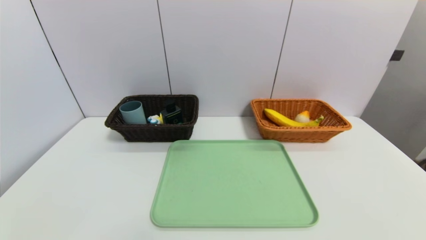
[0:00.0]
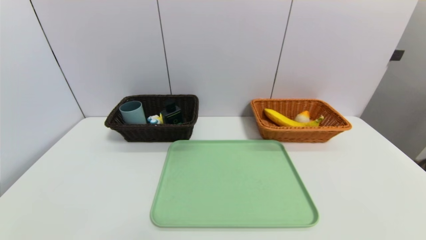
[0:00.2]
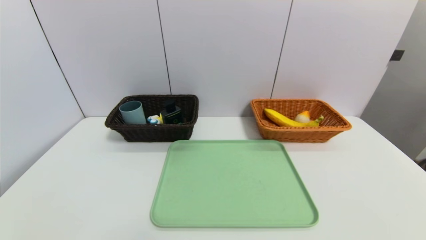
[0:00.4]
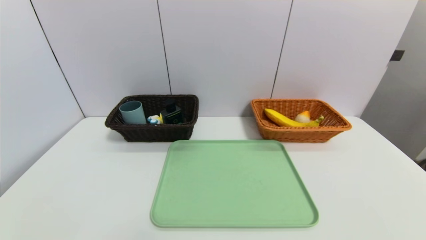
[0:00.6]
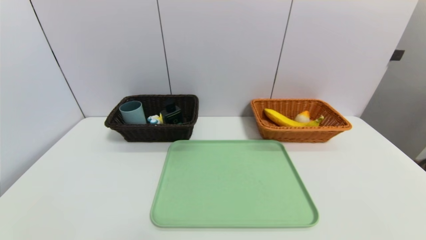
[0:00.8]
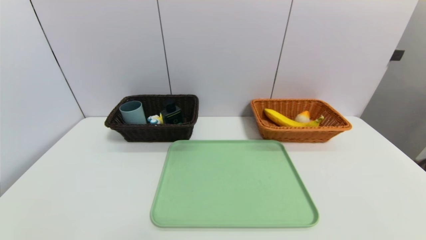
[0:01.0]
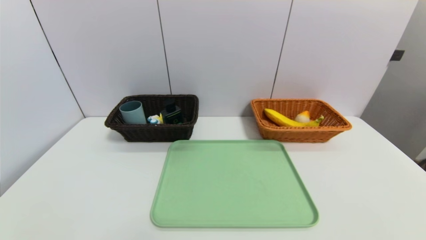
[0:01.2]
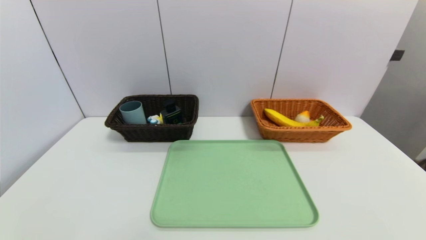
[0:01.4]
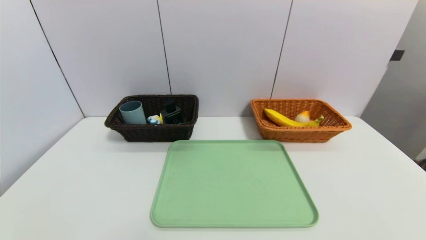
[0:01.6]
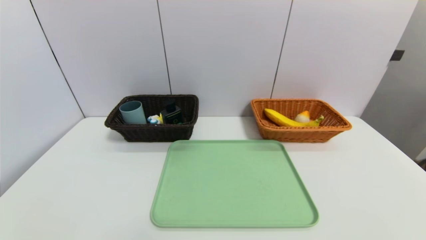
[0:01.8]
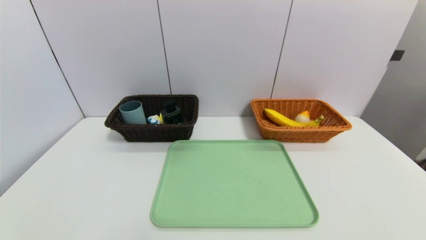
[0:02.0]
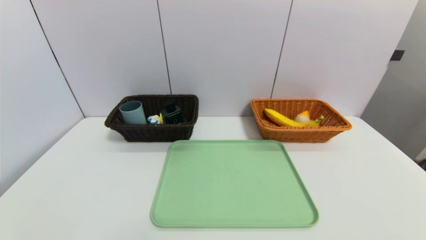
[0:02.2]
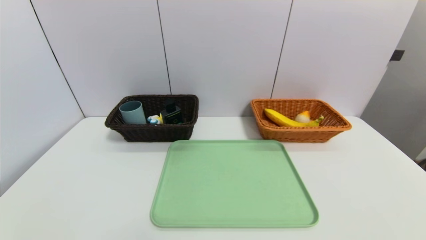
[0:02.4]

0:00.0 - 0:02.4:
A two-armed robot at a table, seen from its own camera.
Task of the whole recording: place the food in the right basket with the right gripper, and place the non food items in the left basket with the left gripper.
0:01.2 - 0:02.4: The two grippers keep their place.

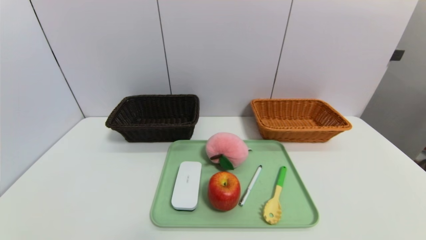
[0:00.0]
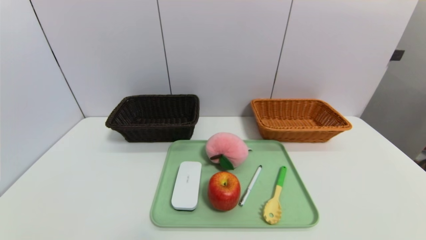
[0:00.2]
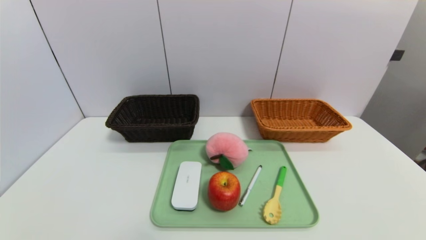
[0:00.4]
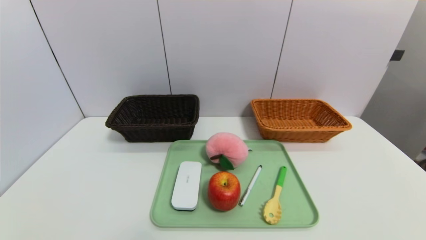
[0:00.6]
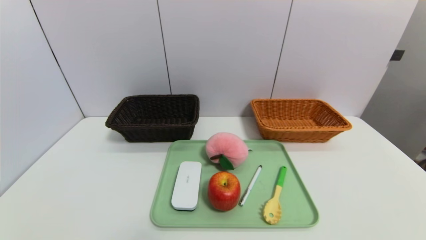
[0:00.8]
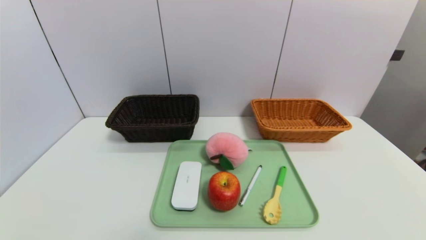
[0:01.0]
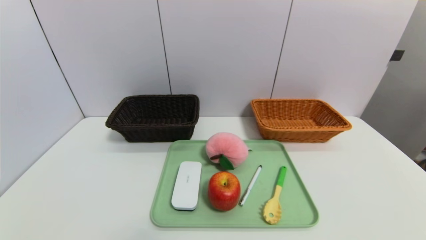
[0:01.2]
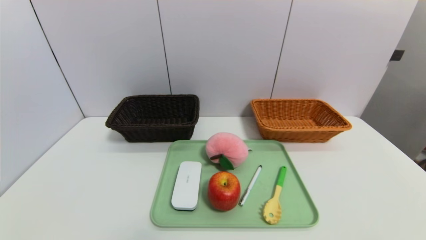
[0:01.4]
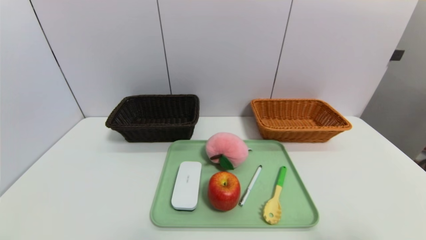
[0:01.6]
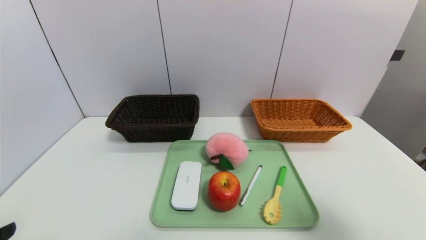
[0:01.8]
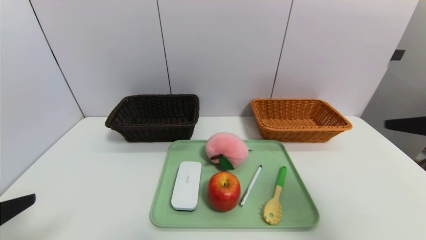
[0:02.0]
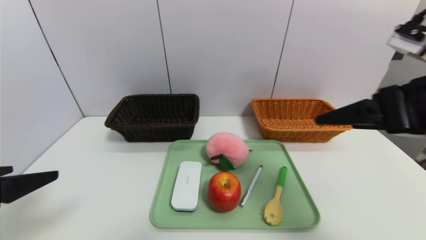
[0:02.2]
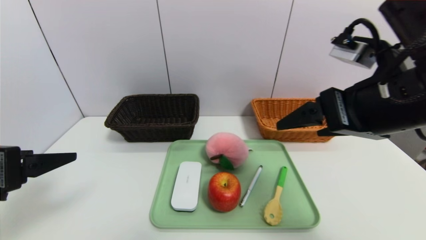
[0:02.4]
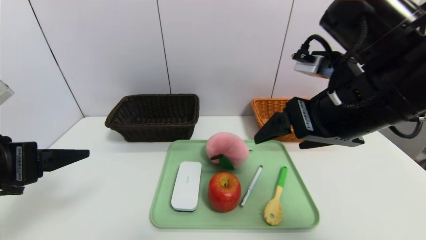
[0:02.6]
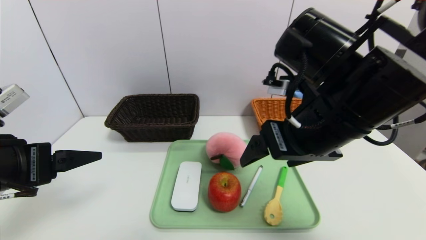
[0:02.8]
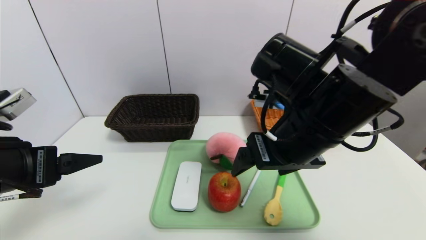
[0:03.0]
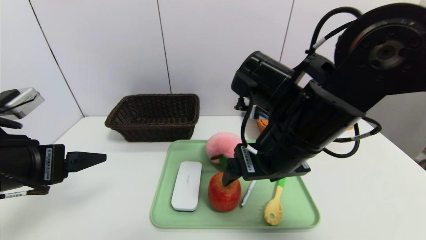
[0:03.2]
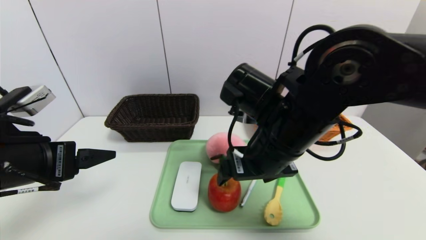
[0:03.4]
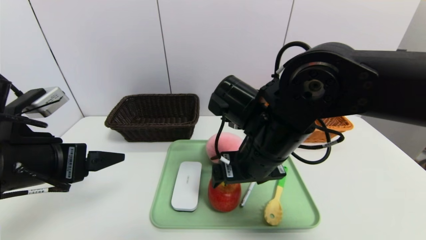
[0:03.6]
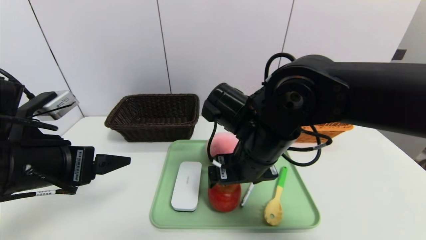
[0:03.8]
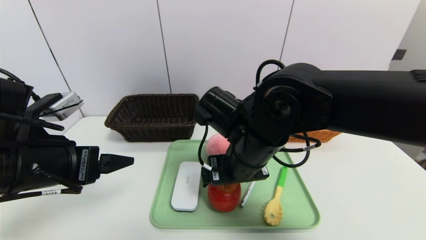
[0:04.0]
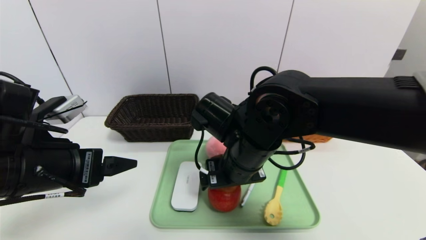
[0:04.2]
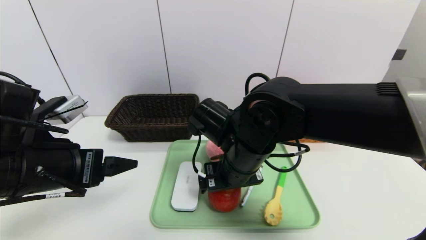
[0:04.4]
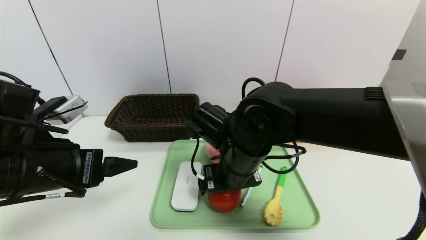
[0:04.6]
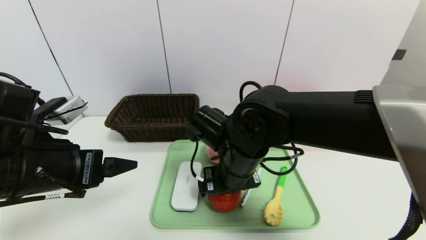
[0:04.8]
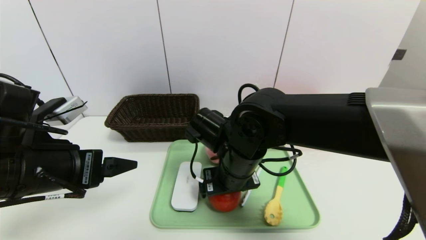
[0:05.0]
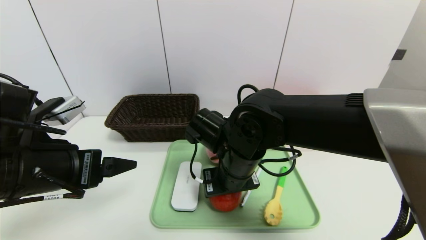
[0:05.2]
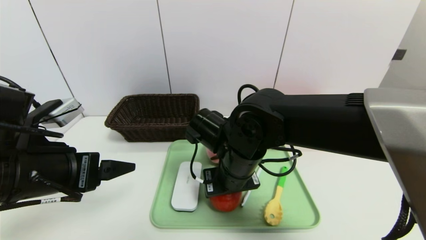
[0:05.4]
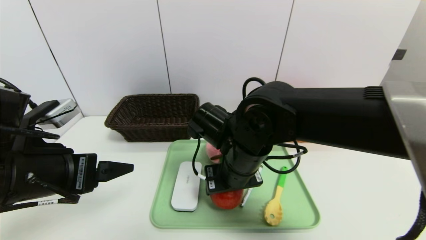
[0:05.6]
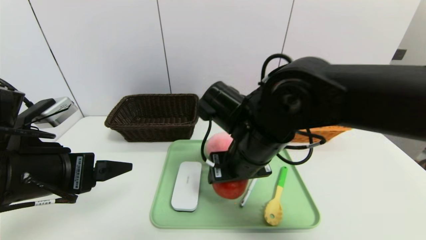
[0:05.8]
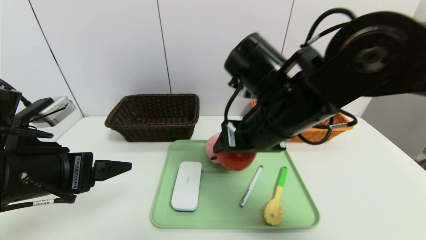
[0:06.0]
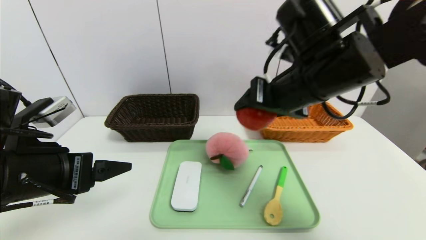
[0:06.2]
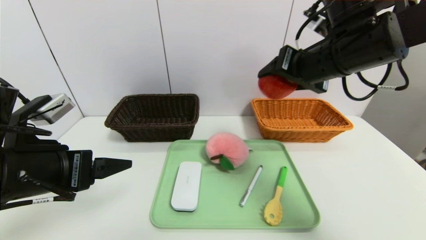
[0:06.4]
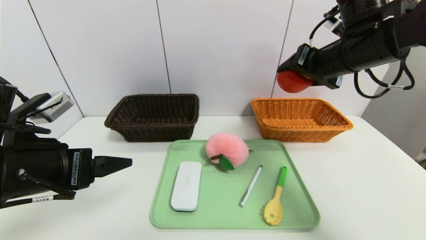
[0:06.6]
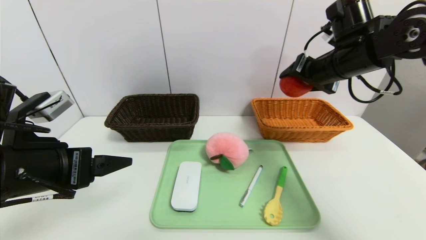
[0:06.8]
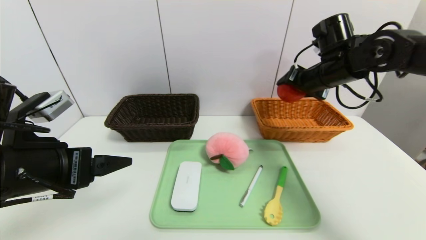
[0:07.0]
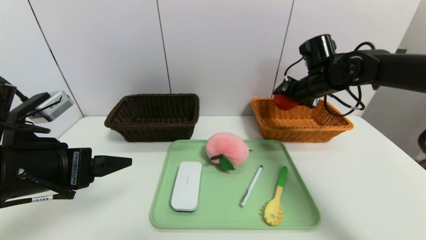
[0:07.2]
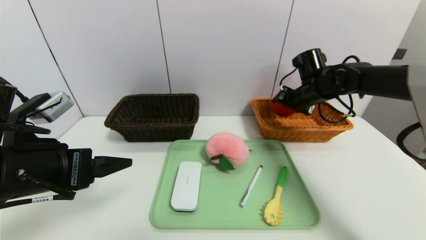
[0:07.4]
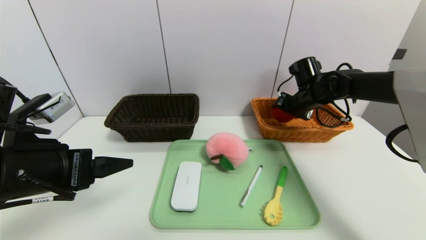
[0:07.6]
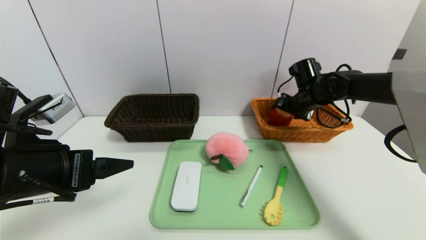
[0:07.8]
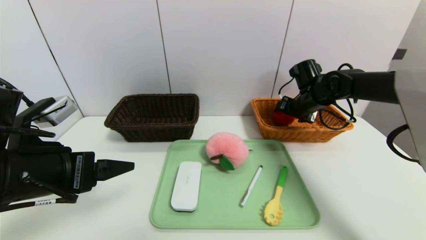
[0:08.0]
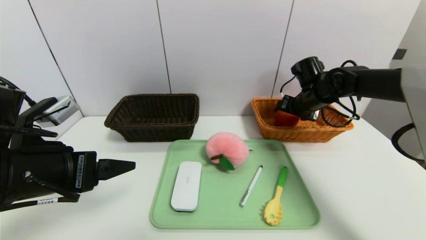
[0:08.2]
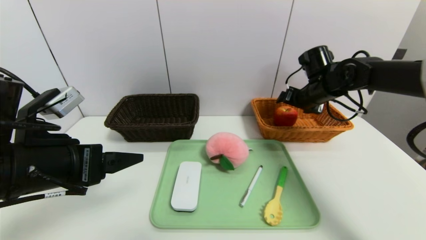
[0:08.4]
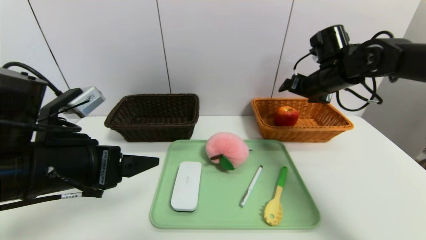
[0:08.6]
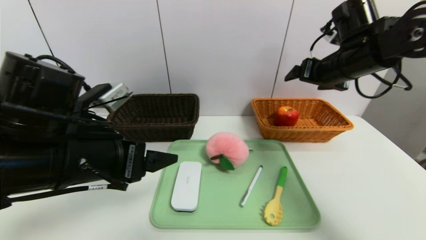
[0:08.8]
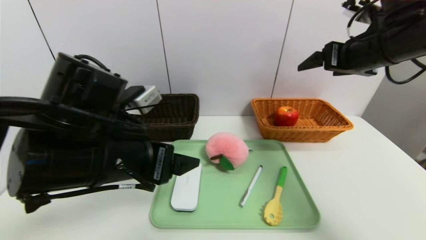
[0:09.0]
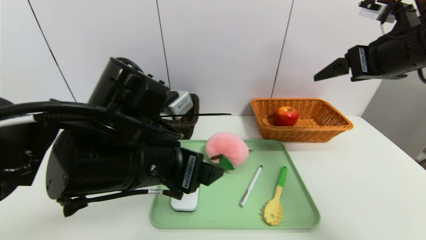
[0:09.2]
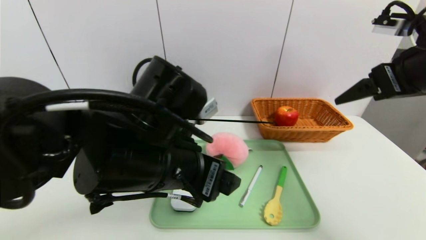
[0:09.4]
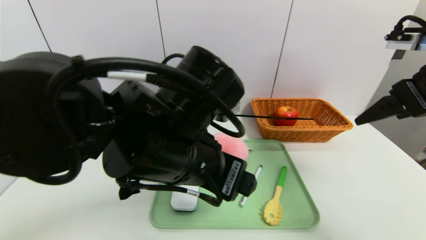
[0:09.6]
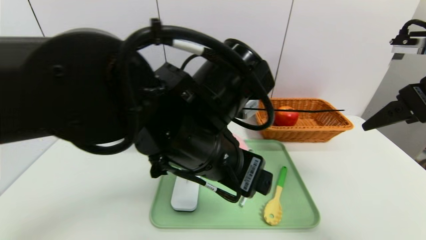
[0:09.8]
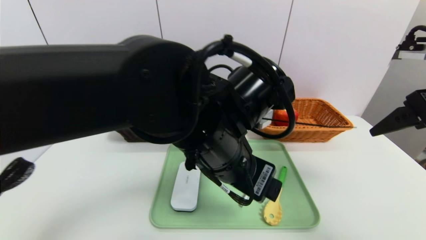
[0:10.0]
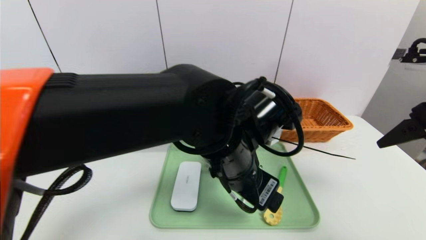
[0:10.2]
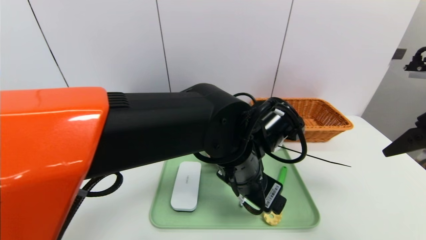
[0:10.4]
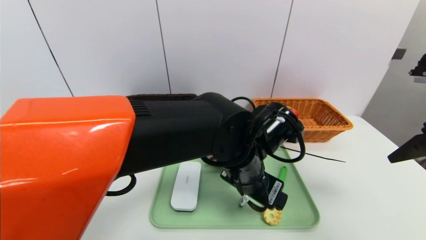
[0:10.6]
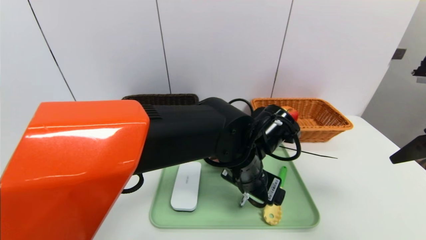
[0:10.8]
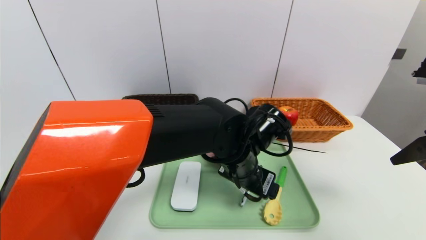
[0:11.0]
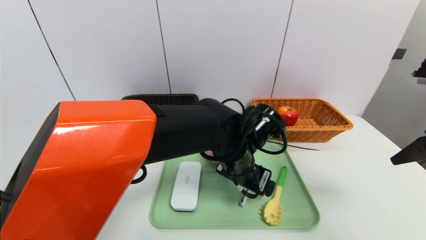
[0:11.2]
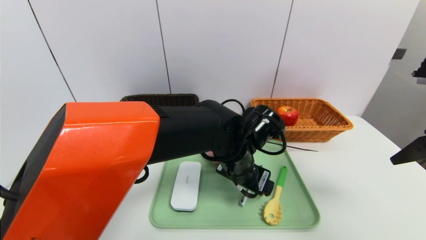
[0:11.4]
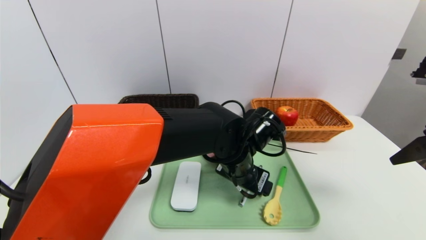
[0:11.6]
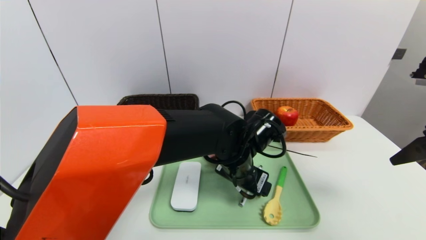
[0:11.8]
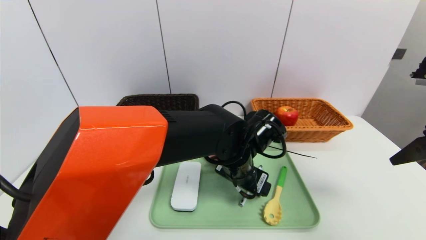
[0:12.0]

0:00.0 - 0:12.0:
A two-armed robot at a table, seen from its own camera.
Task of the whole recording: place the food in the right basket with the right gripper, and place the non food items in the left basket with the left gripper.
Step, 0:00.0 - 0:08.6: Grasp the apple and put it in the right basket.
0:01.6 - 0:03.0: The left gripper heads forward, covering about 15 cm; the right gripper moves to the left and forward, roughly 30 cm.
0:03.0 - 0:04.4: The right gripper goes about 10 cm downward and to the left.
0:04.4 - 0:06.0: The right gripper moves upward and to the right, about 10 cm, and closes up.
0:06.0 - 0:07.6: The right gripper goes some 25 cm forward, to the right and downward.
0:07.6 - 0:09.0: The right gripper shifts about 20 cm upward and backward, and opens its fingers. Meanwhile the left gripper moves to the right, approximately 10 cm.
0:09.0 - 0:10.4: The left gripper shifts some 15 cm to the right. The right gripper travels backward by approximately 10 cm.
0:10.4 - 0:12.0: The left gripper shifts by some 5 cm.

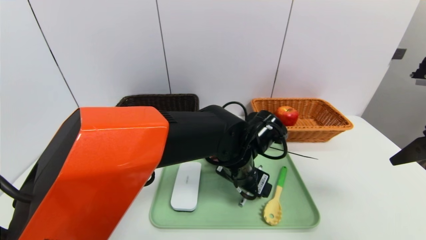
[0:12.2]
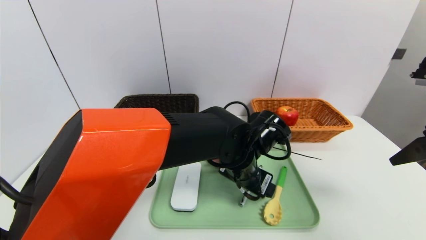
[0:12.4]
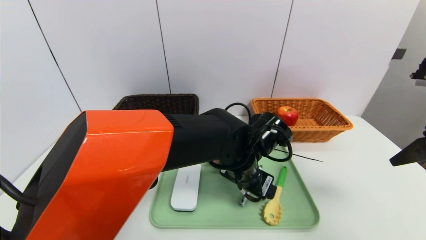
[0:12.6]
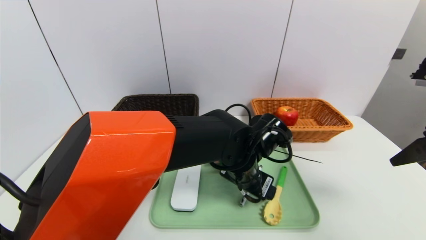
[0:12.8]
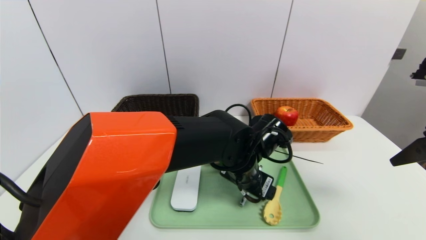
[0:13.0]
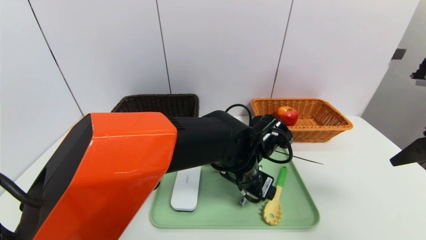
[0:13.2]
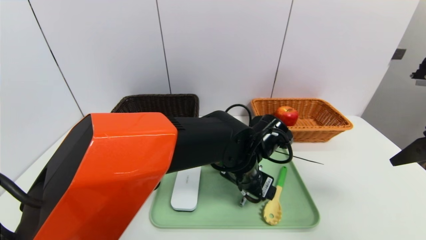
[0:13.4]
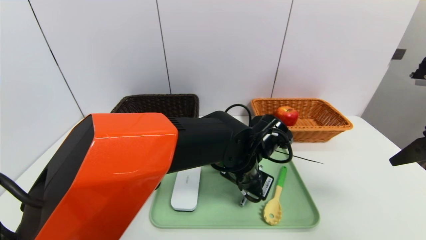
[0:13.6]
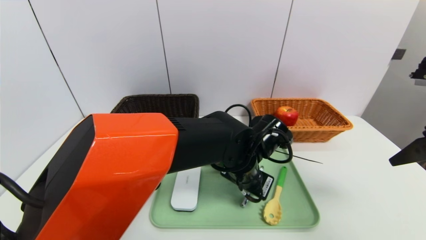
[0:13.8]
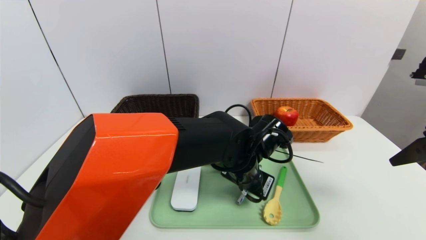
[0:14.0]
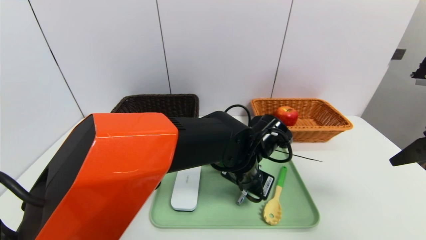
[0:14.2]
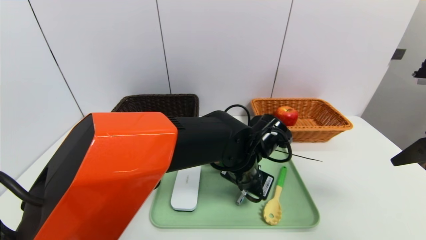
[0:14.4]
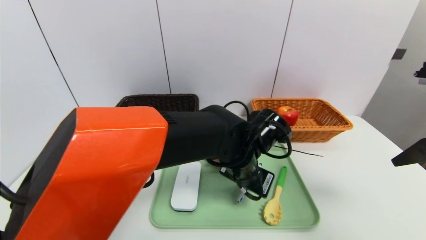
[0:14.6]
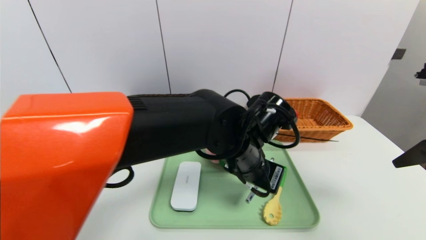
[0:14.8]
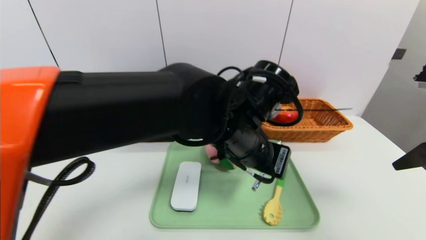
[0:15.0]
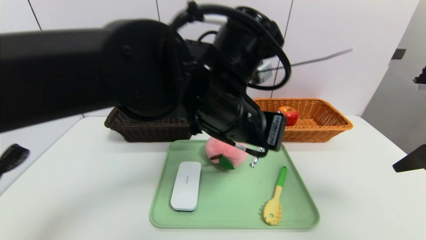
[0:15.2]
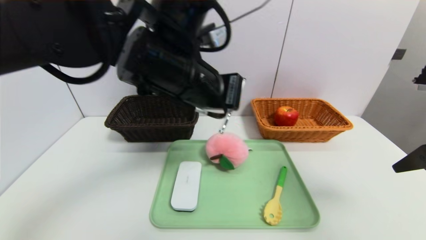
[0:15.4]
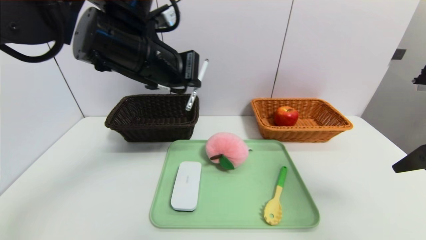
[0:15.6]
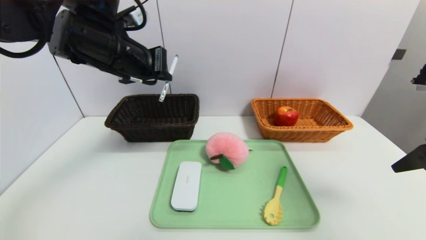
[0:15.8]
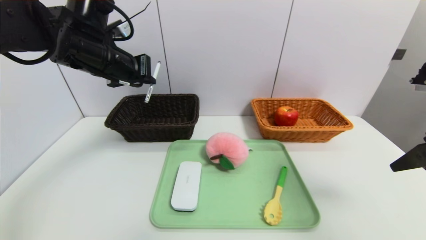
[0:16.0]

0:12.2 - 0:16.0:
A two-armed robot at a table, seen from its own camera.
Task of the whole recording: place the food in the right basket with the right gripper, and place the non food items in the left basket with the left gripper.
0:12.2 - 0:13.4: Both grippers stay about where they are.
0:13.4 - 0:14.8: The left gripper goes approximately 5 cm upward, and closes its fingers.
0:14.8 - 0:16.0: The left gripper is displaced to the left and upward by about 30 cm.
